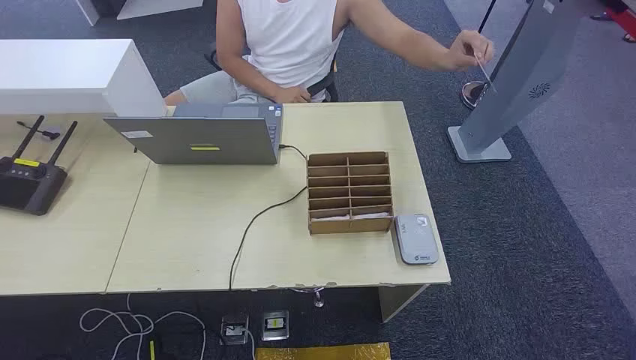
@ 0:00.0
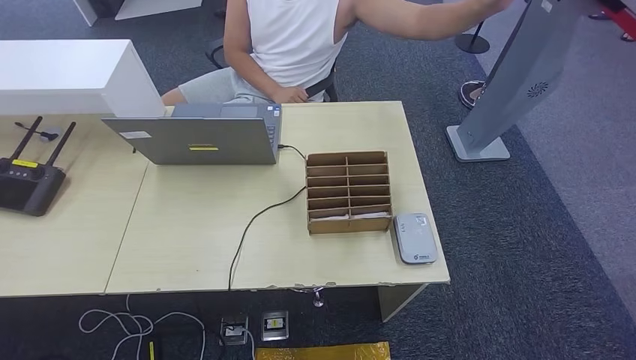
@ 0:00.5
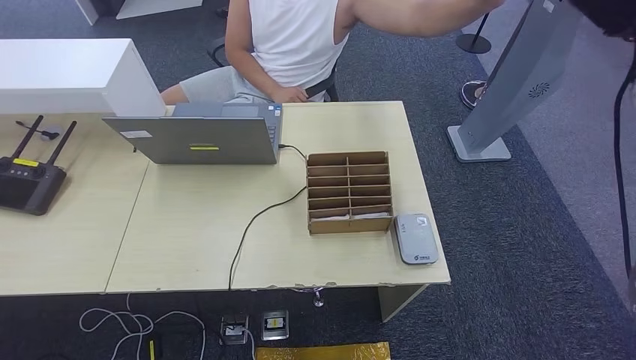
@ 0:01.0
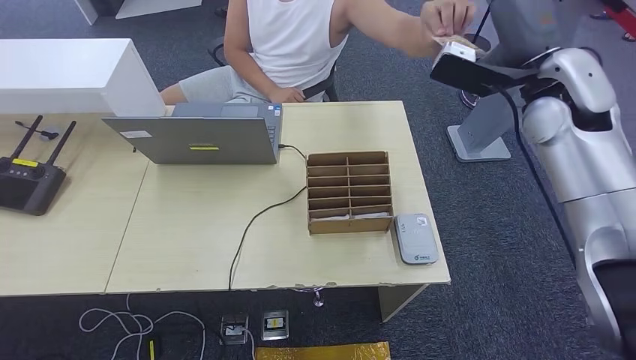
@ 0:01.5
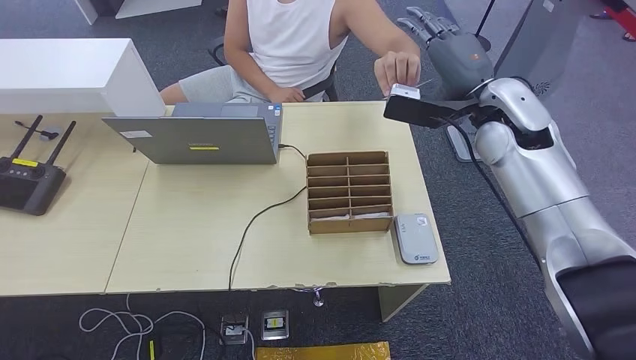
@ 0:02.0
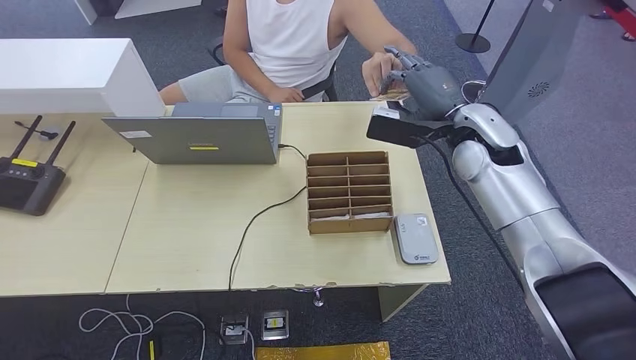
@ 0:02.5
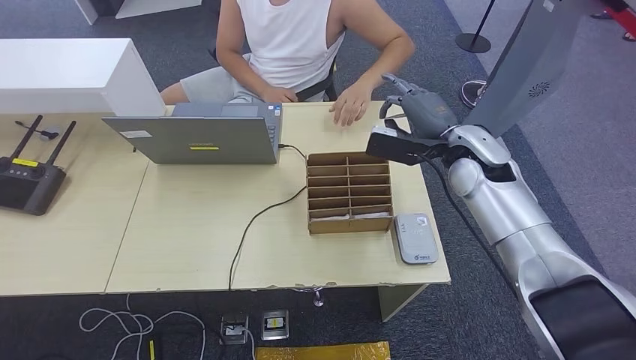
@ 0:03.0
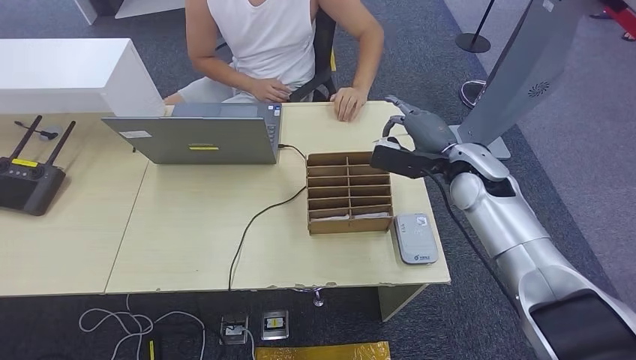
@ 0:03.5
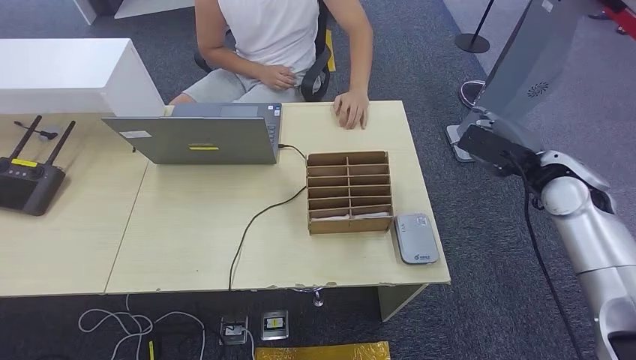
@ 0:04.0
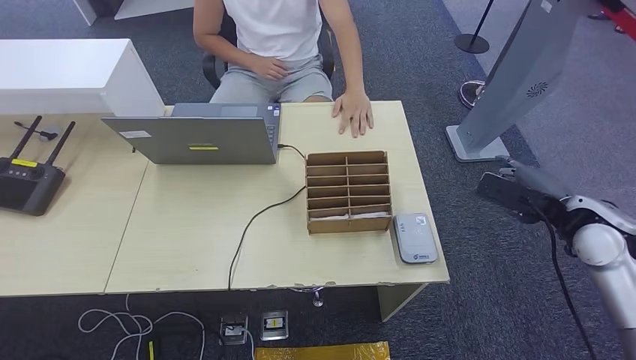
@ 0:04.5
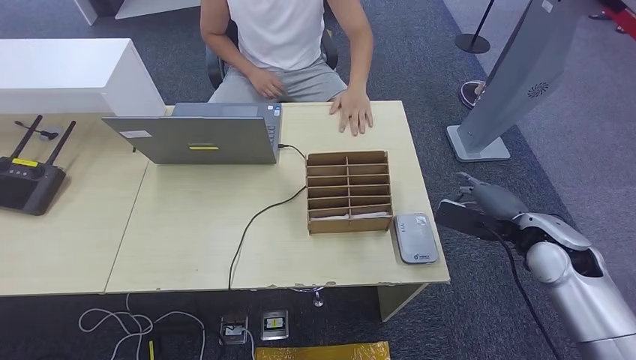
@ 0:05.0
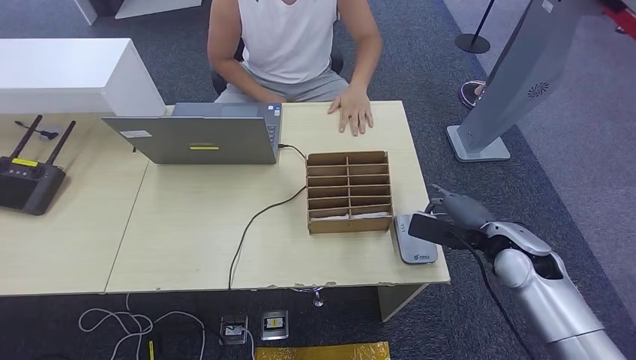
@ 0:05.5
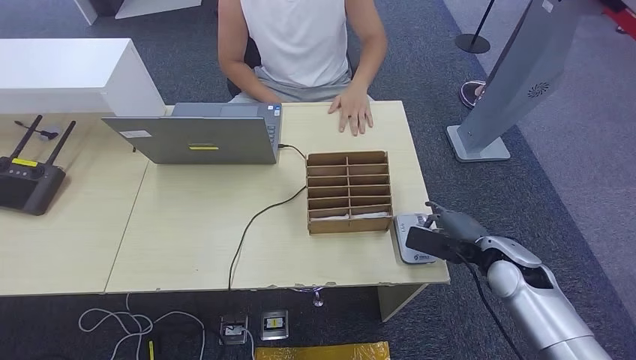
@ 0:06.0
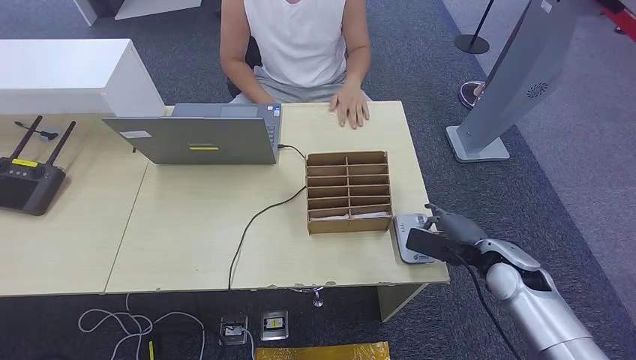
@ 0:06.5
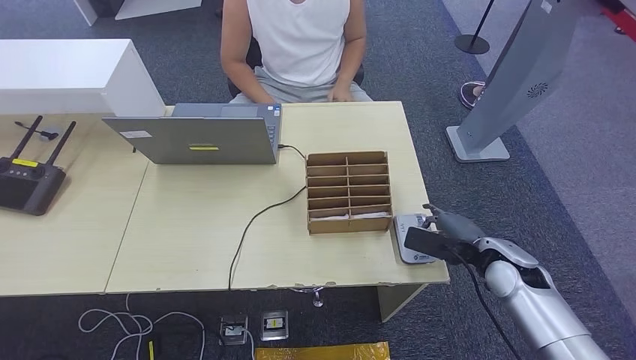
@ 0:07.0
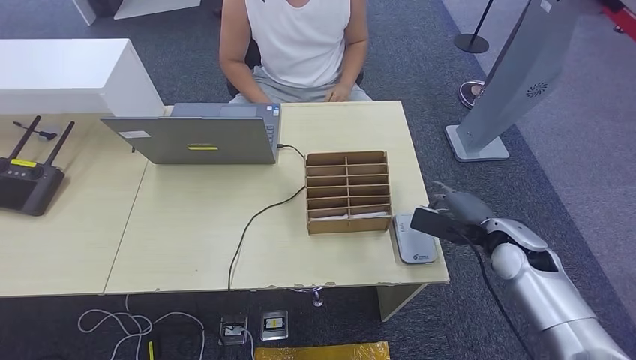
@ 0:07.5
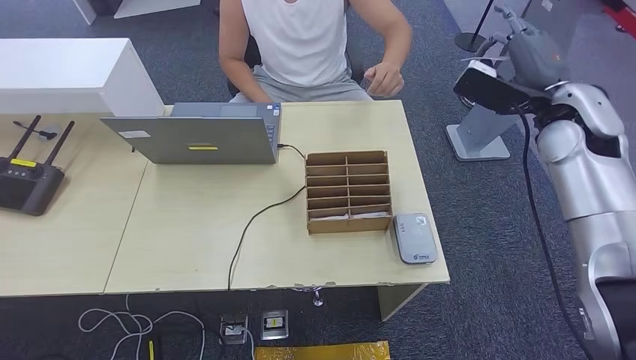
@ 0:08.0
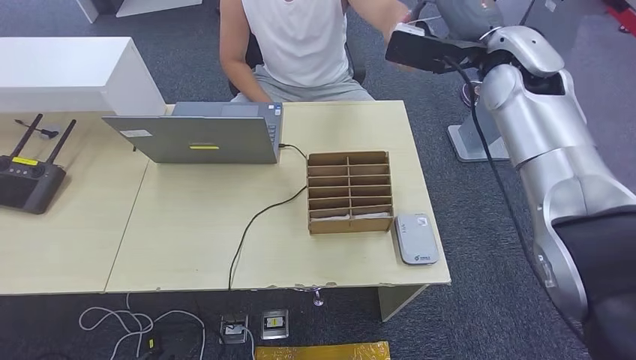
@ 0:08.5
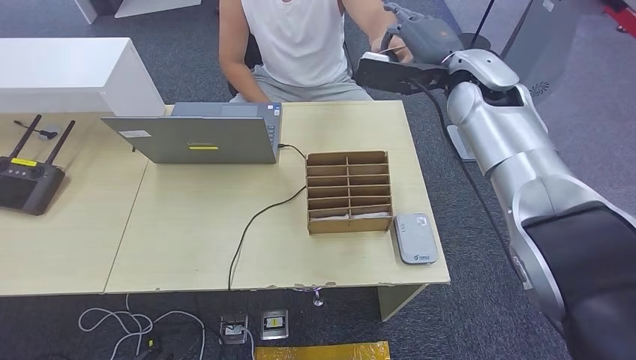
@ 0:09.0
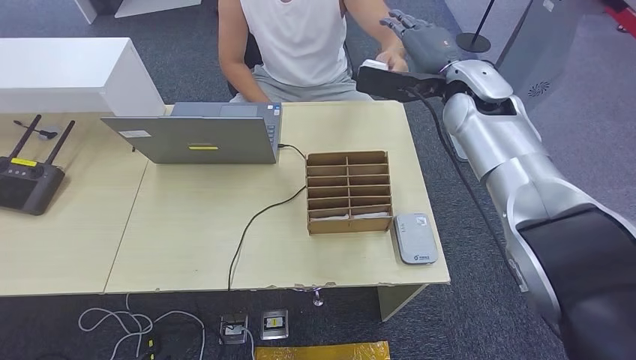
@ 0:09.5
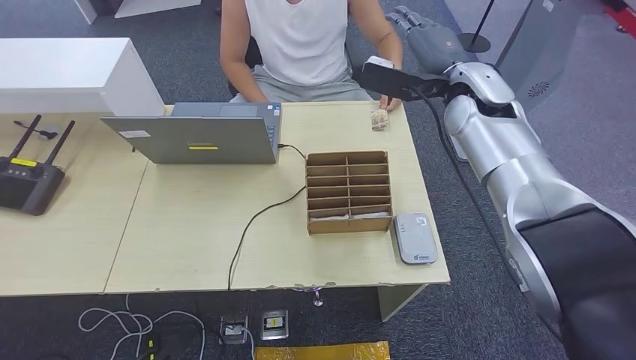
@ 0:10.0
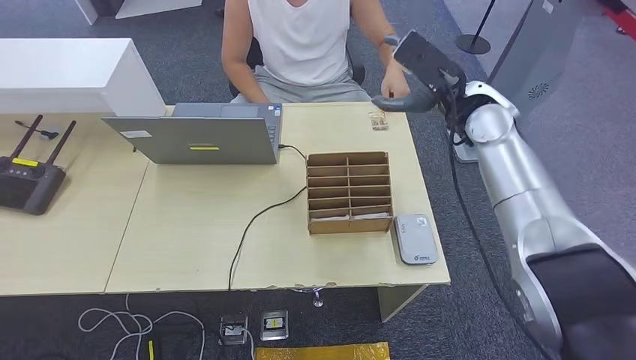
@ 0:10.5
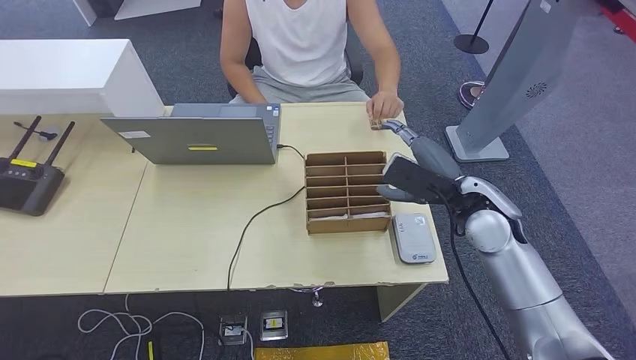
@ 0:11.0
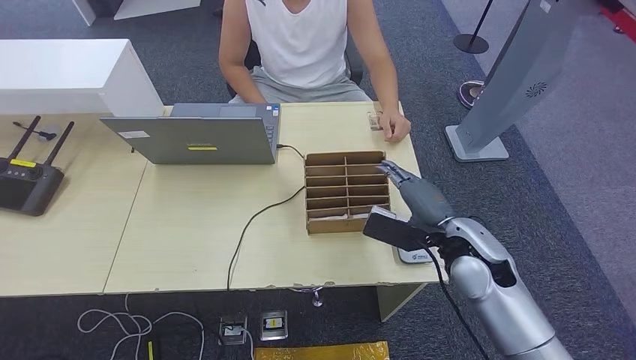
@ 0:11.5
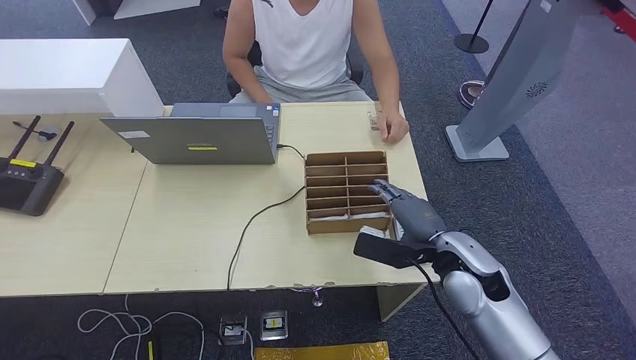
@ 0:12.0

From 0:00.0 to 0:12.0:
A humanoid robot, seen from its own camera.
Step, from 0:00.0 to 0:03.0: Take the ID card from the person's hand.
Step, from 0:03.5 to 0:06.5: Place the ID card on the card reader.
Step, from 0:07.0 to 0:09.0: Hand the ID card to the person.
From 0:02.0 to 0:04.0: The right hand heads to the right and downward, covering approximately 15 cm.
From 0:04.0 to 0:06.0: The right hand travels downward and backward by some 15 cm.
From 0:06.0 to 0:08.0: The right hand is displaced upward and forward by approximately 25 cm.
From 0:08.0 to 0:10.0: The right hand goes approximately 15 cm to the left and forward.

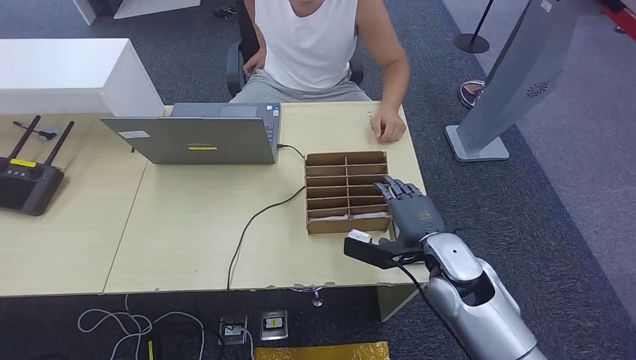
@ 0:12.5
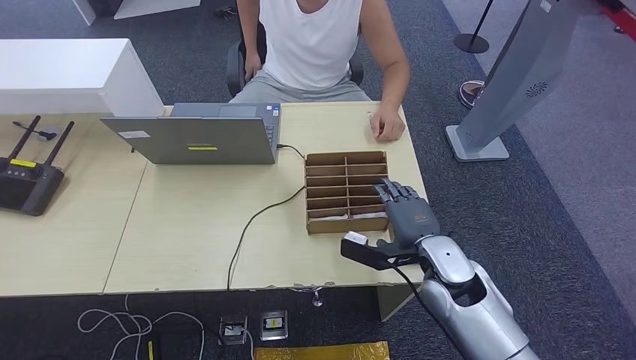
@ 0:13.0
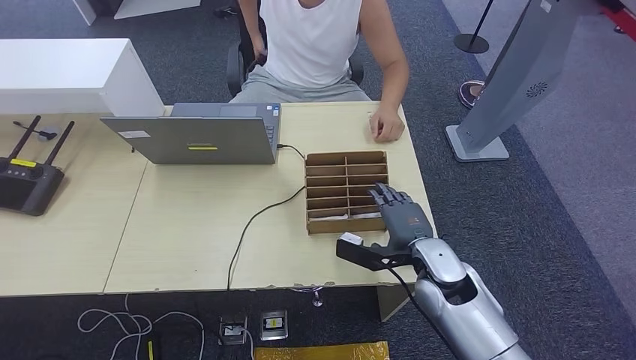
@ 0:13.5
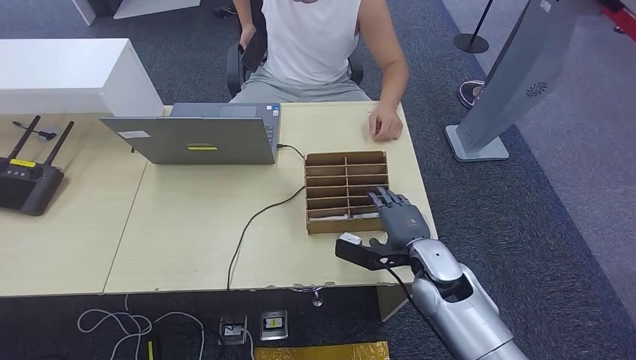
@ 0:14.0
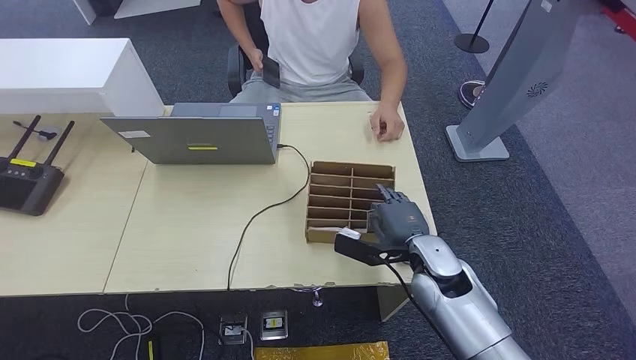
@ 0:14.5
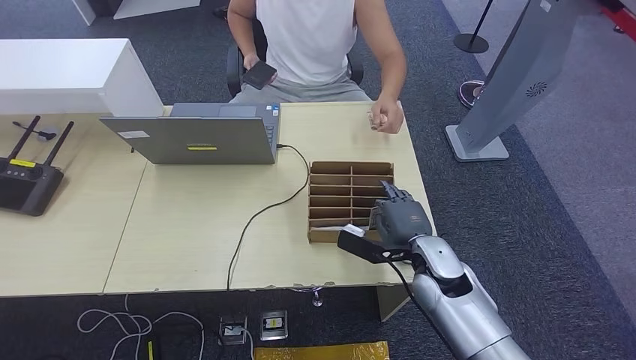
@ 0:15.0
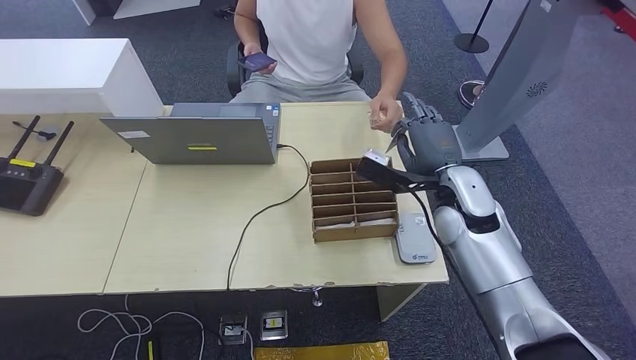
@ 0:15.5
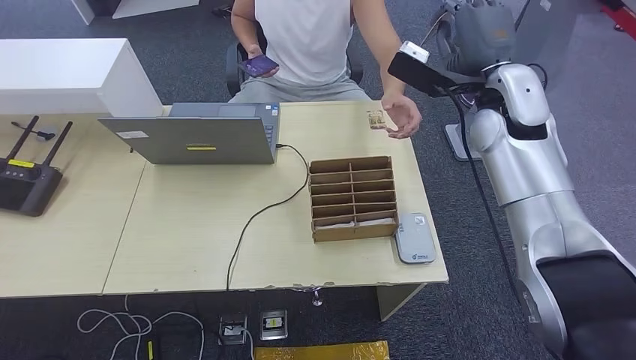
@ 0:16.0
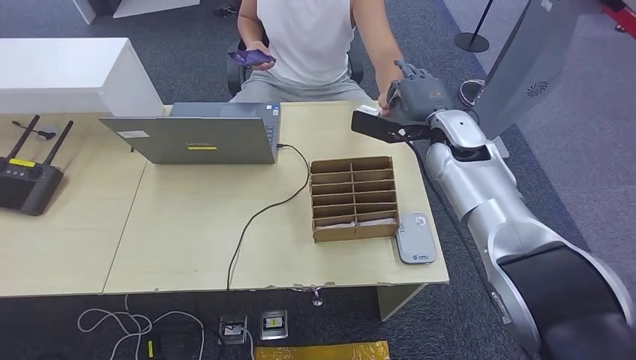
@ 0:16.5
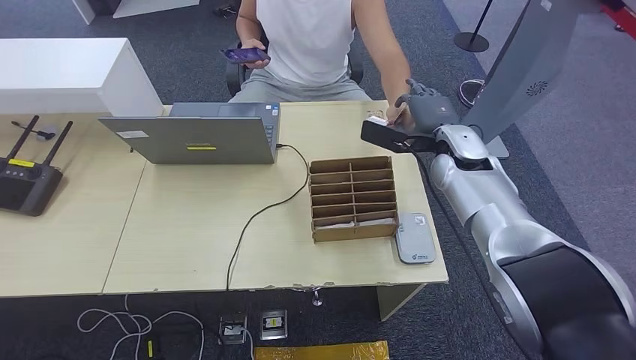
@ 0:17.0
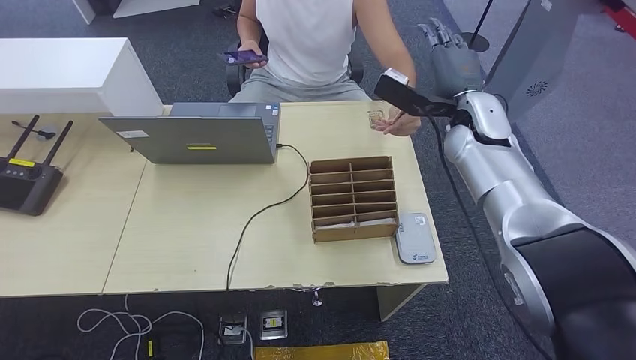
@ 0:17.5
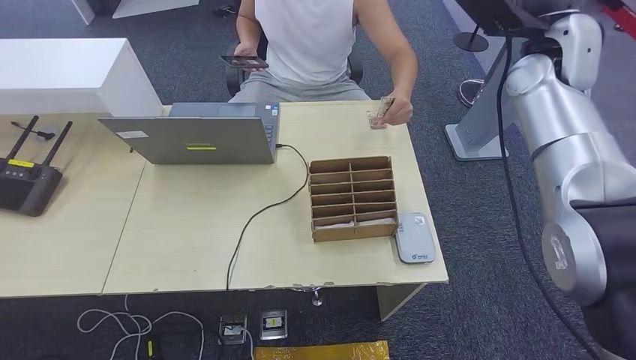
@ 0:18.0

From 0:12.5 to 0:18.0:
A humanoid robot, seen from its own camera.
Step, from 0:12.5 to 0:15.0: Pick up the room key from the key card box.
Step, from 0:15.5 to 0:18.0: Hand the room key to the person.
From 0:12.5 to 0:14.5: The hands move only a little.
From 0:16.0 to 0:18.0: The right hand moves to the right, about 5 cm, and travels downward and back again, roughly 10 cm each way.
